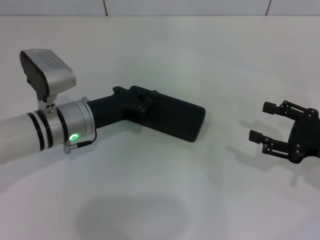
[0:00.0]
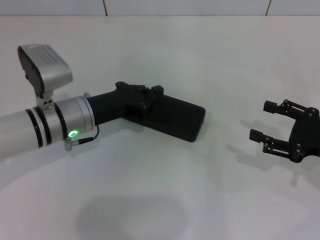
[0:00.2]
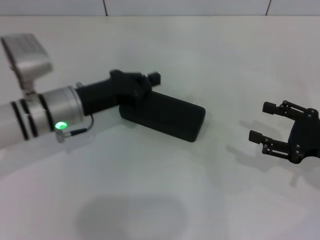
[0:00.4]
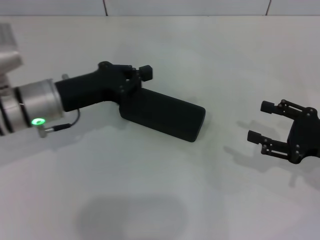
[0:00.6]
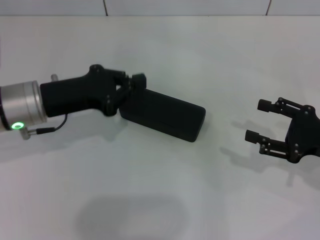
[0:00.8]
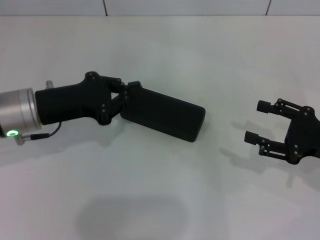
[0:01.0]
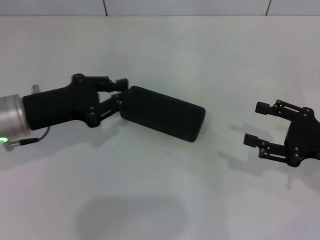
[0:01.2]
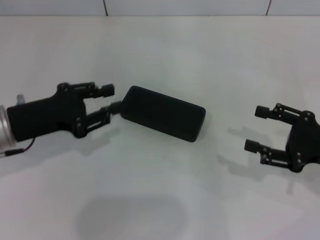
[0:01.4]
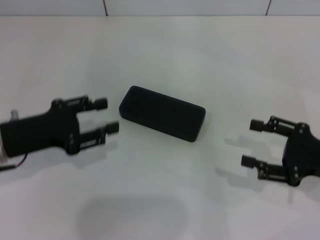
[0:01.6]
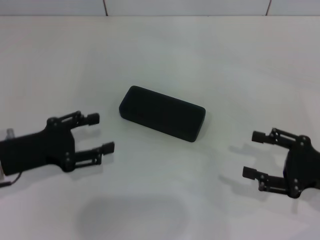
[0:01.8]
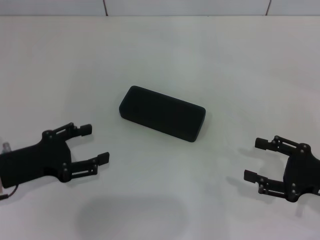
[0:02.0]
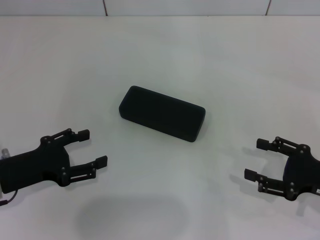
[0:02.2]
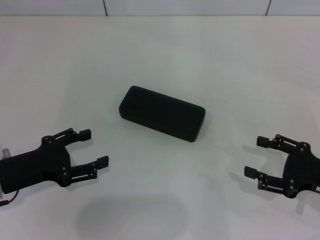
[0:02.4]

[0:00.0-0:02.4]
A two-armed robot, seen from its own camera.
0:00.0 to 0:01.2: The left gripper heads to the left and upward, covering roughly 10 cm.
0:01.2 to 0:02.4: The left gripper goes roughly 5 cm backward, and opens.
